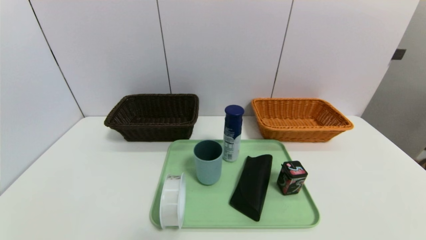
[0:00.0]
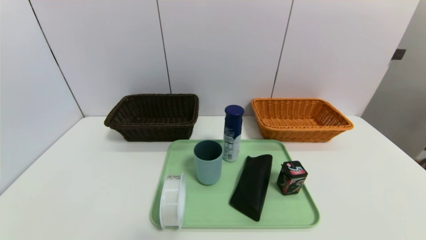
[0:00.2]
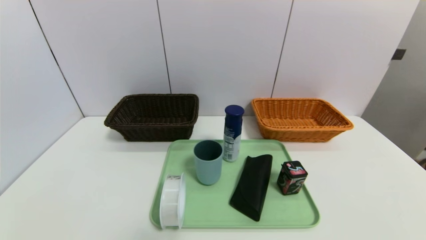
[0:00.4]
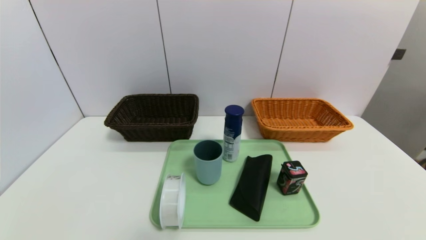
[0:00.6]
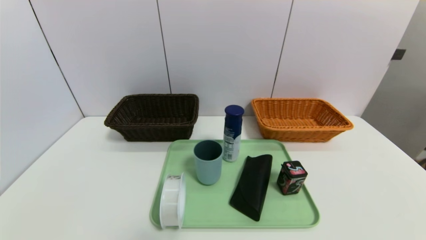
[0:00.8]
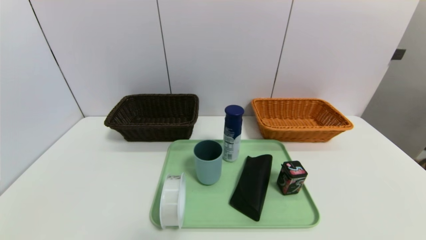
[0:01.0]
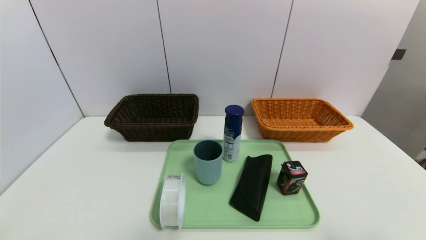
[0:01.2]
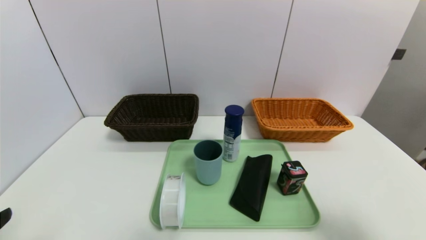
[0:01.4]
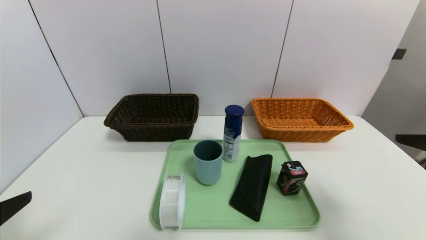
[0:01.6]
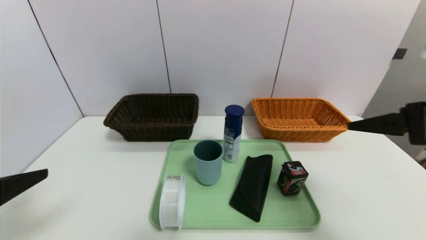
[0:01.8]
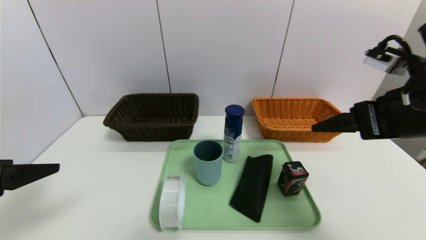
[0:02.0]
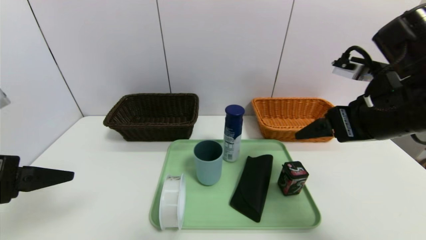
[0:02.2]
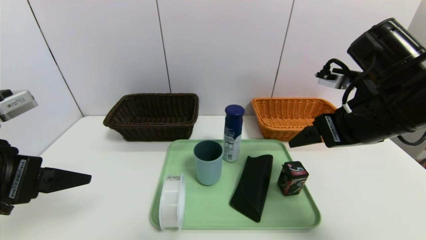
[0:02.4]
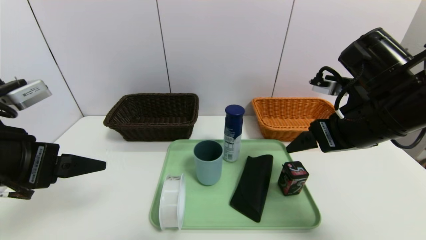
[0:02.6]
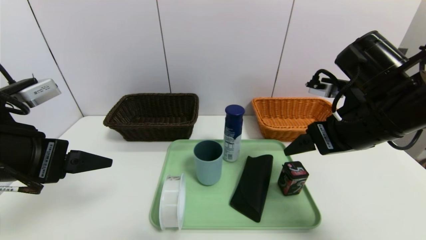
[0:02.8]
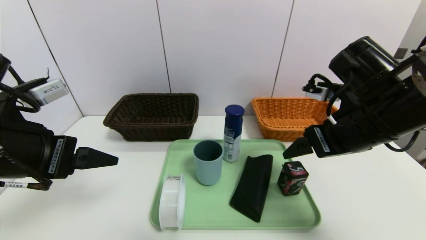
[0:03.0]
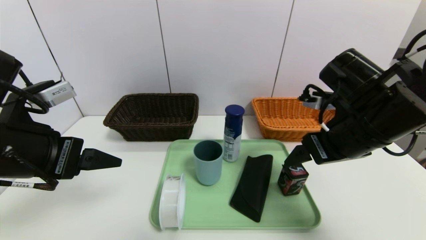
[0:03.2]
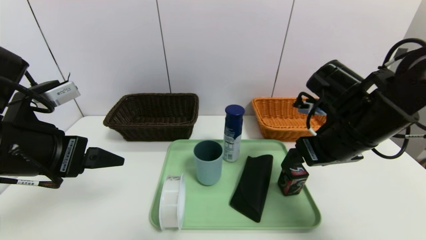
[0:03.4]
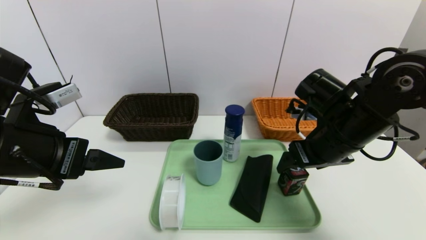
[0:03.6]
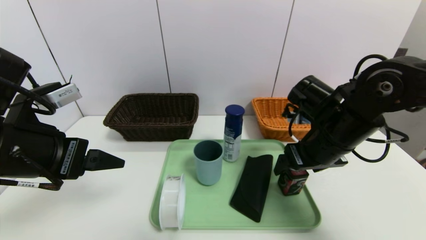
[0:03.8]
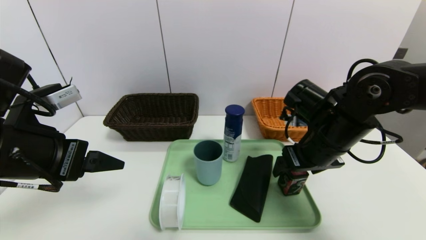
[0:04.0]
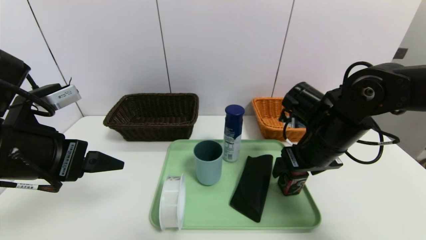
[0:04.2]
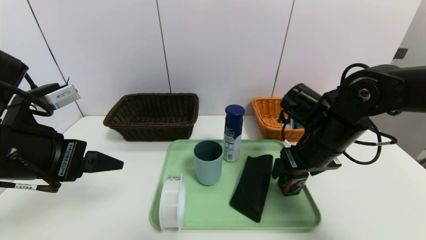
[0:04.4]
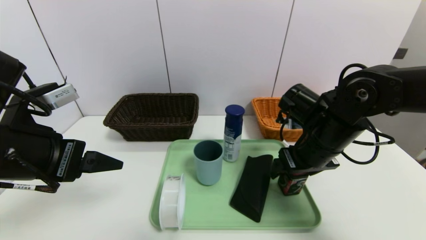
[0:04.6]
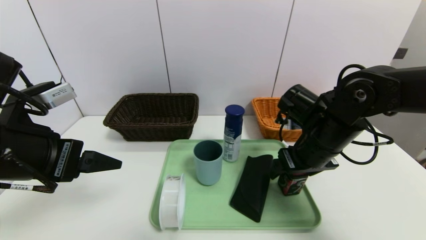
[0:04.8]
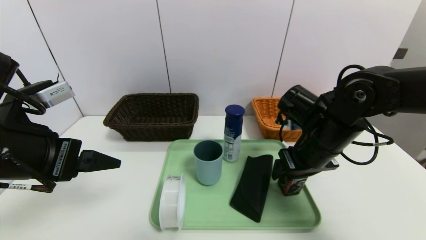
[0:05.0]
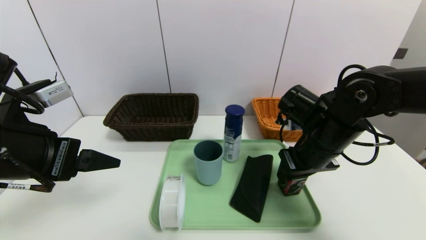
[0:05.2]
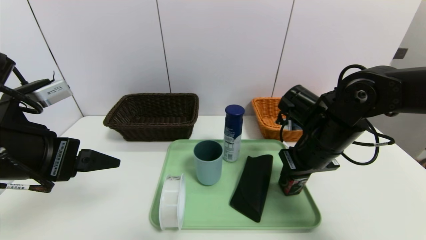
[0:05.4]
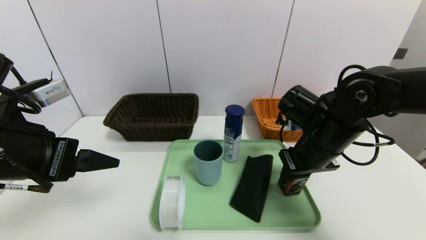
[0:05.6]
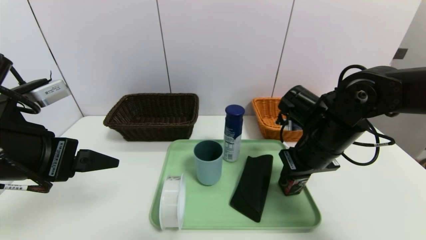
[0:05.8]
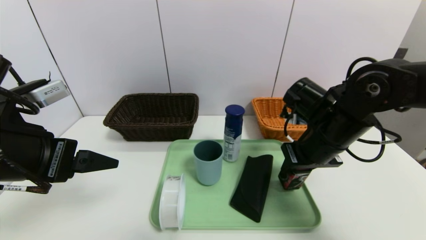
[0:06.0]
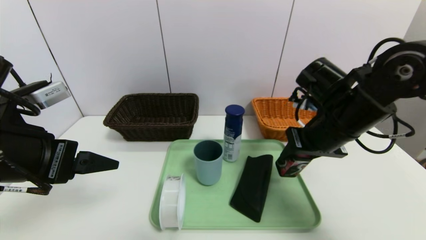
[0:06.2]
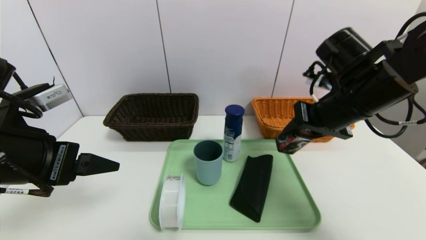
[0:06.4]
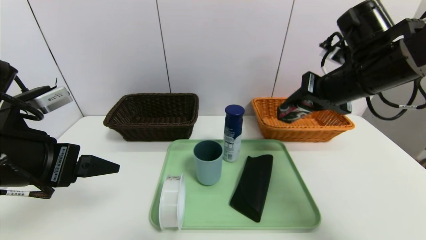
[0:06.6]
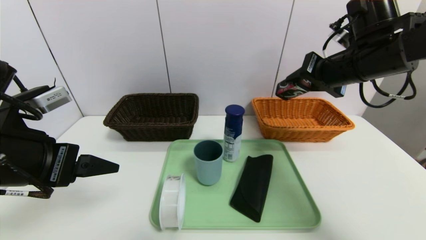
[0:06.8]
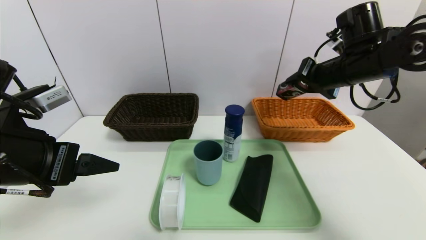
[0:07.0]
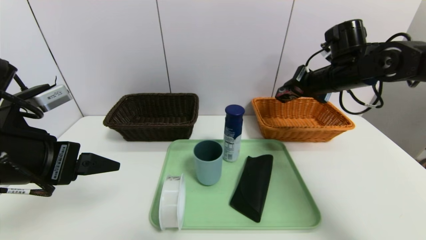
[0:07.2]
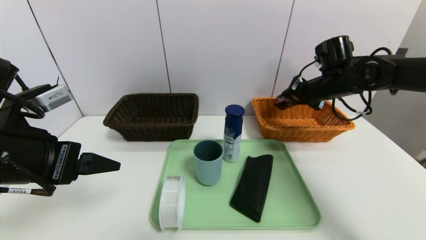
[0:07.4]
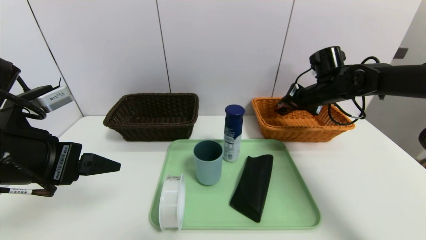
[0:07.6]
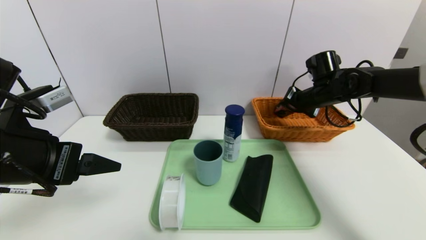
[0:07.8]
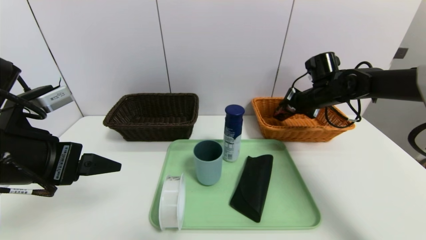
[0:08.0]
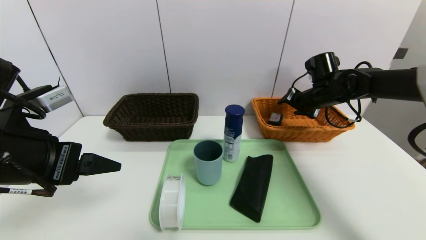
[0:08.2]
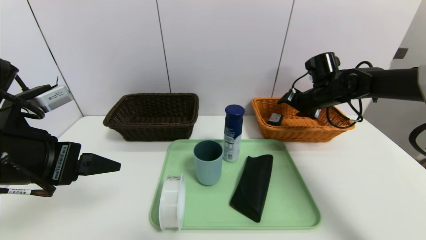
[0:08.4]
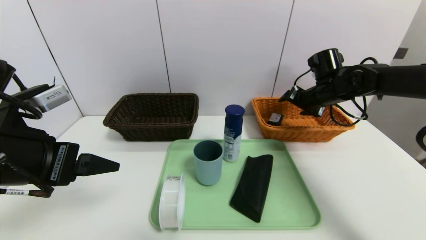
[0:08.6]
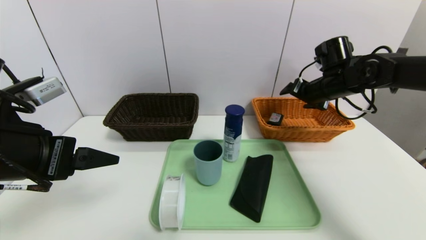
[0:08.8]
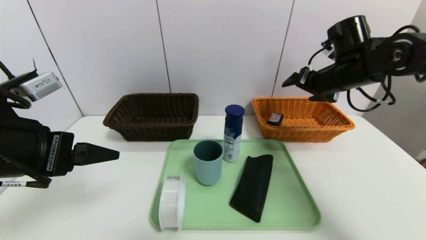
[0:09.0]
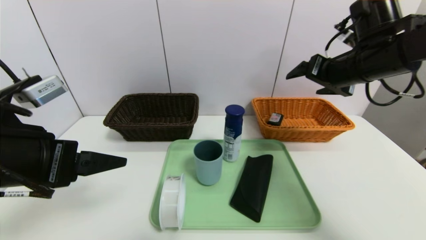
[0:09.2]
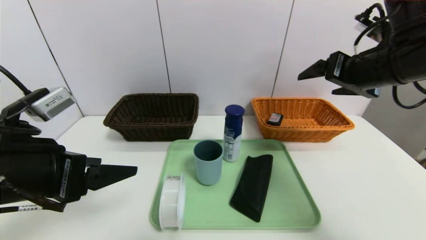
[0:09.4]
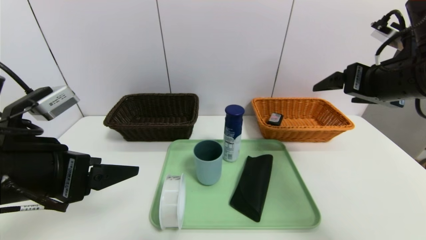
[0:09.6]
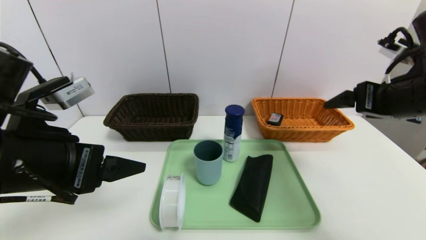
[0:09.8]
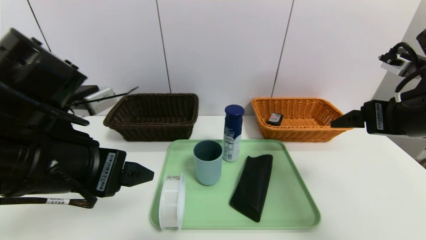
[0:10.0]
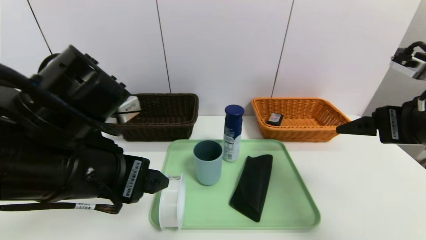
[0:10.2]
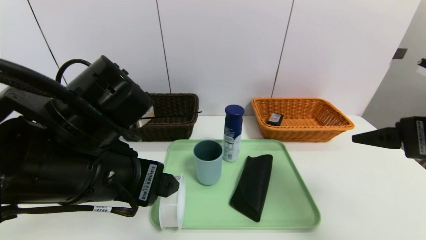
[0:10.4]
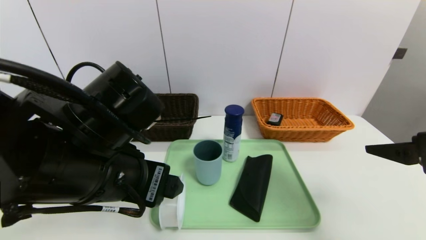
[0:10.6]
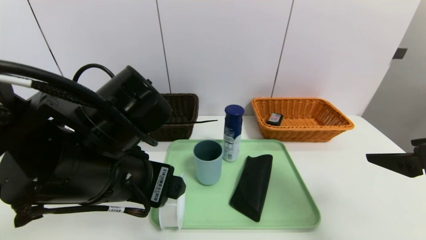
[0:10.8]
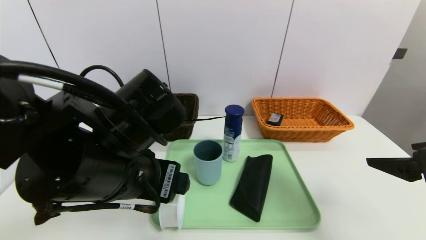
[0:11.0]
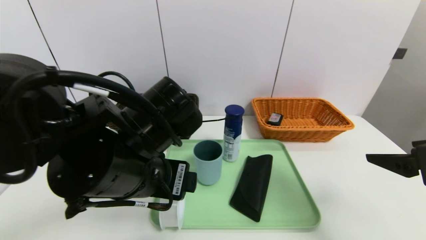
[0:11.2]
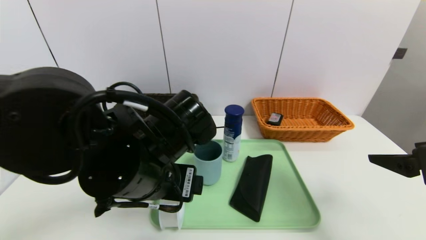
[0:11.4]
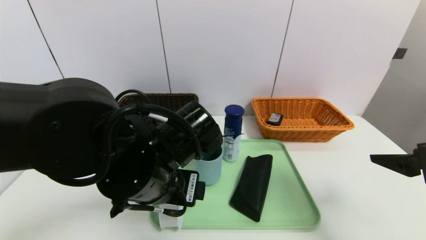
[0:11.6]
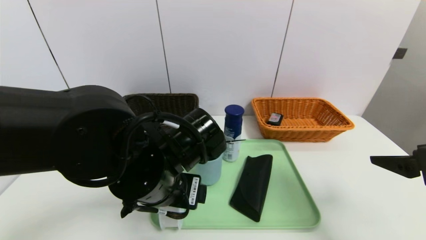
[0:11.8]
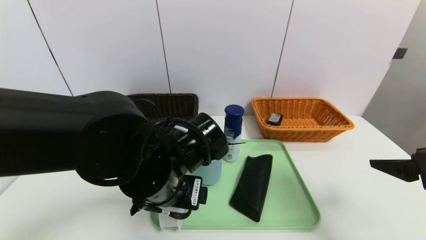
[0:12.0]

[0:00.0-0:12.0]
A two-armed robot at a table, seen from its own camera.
Task of the whole recording: place the food in the right basket with the right gripper, and place the non food items in the left basket with the left gripper.
Step, 0:00.0 to 0:08.6: Grasp the square chewing gum and put it in the right basket.
0:00.0 to 0:01.6: Both grippers travel together upward and forward, roughly 20 cm.
0:01.6 to 0:03.0: The right gripper moves forward and to the left, about 15 cm, while the left gripper shifts some 10 cm forward and to the right.
0:03.0 to 0:04.4: The right gripper is displaced downward by roughly 5 cm.
0:04.4 to 0:06.0: The right gripper closes up.
0:06.0 to 0:07.6: The right gripper shifts roughly 15 cm forward and to the right.
0:07.6 to 0:09.0: The right gripper moves upward and backward, roughly 10 cm, and opens its fingers.
0:09.0 to 0:10.4: The right gripper moves backward, some 20 cm; the left gripper shifts approximately 10 cm to the right.
0:10.4 to 0:12.0: The left gripper heads downward and to the right, covering approximately 10 cm.

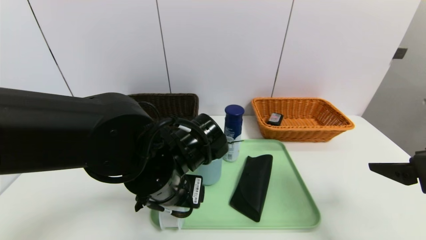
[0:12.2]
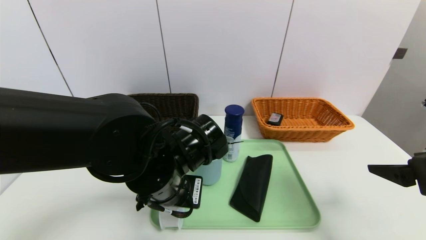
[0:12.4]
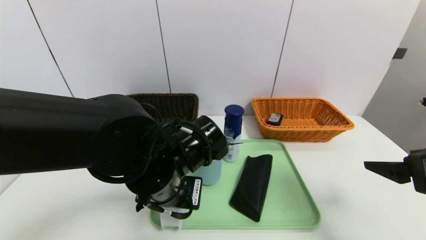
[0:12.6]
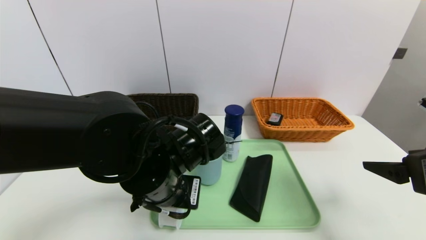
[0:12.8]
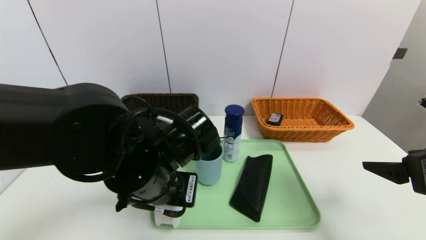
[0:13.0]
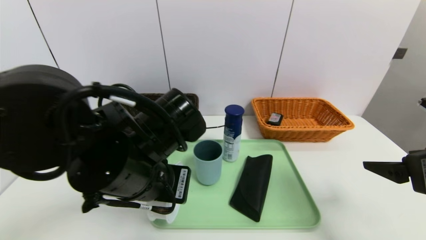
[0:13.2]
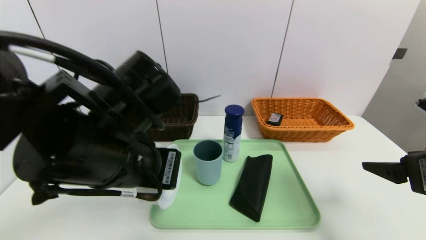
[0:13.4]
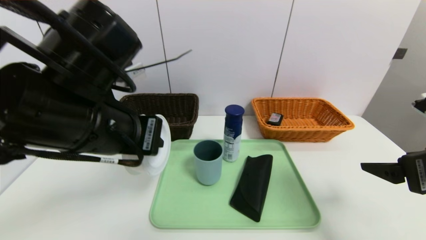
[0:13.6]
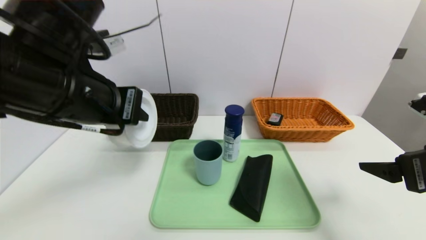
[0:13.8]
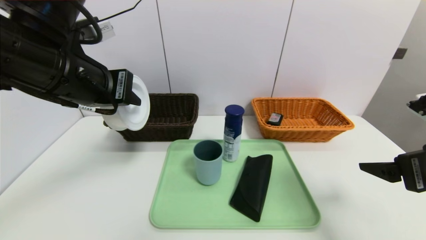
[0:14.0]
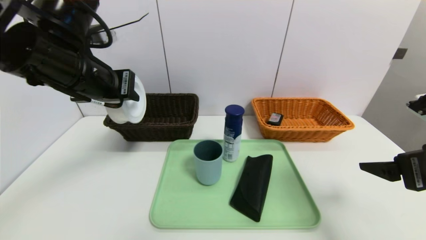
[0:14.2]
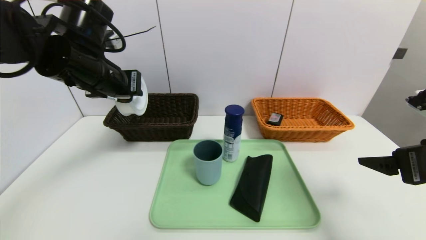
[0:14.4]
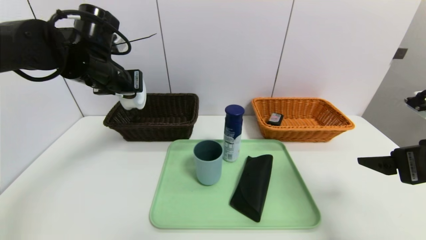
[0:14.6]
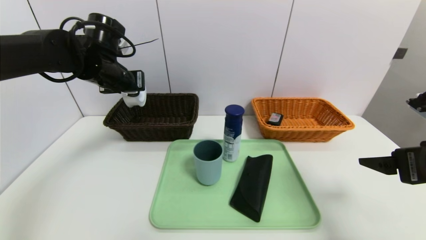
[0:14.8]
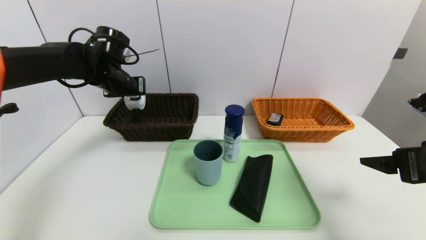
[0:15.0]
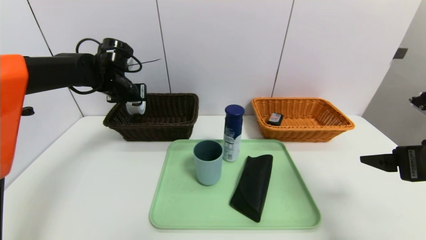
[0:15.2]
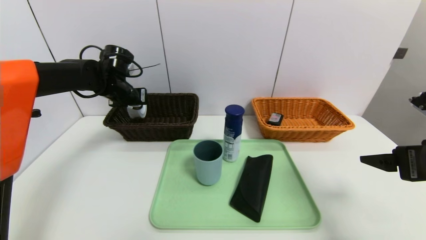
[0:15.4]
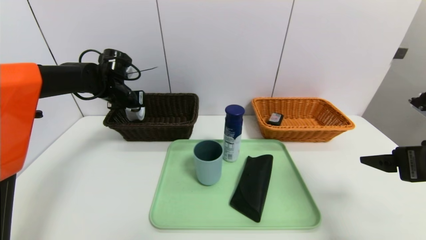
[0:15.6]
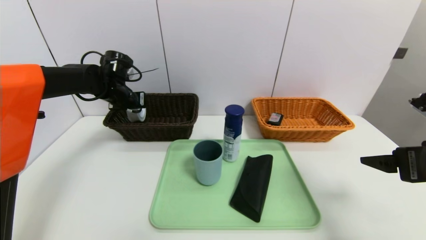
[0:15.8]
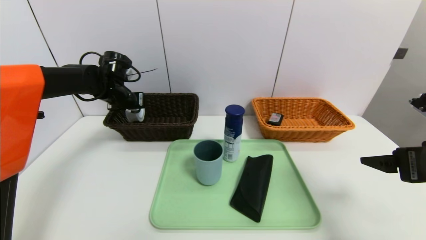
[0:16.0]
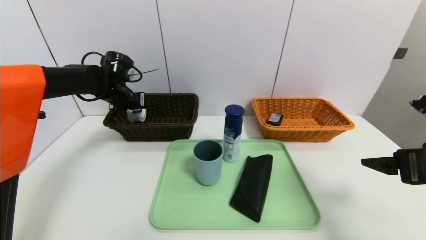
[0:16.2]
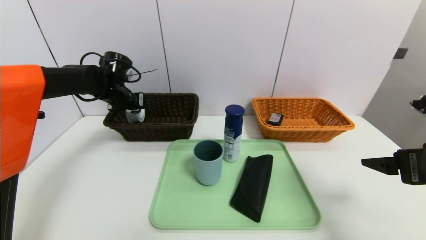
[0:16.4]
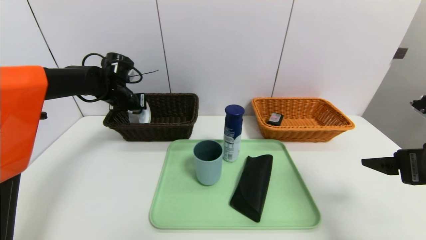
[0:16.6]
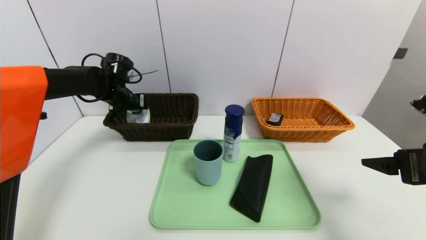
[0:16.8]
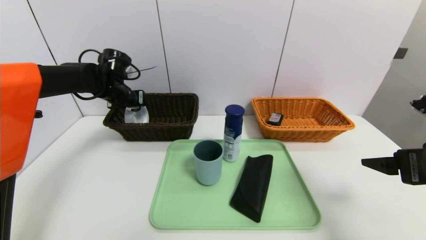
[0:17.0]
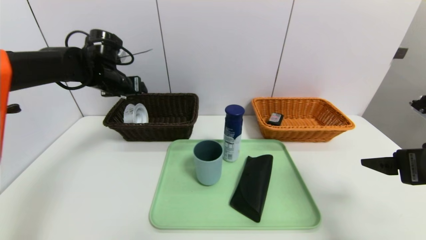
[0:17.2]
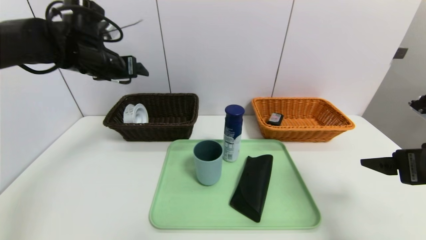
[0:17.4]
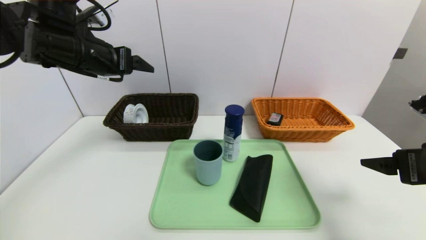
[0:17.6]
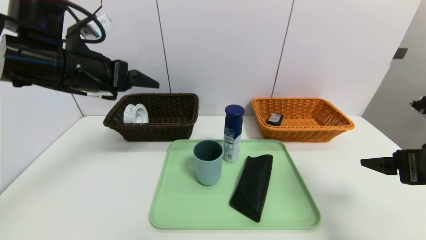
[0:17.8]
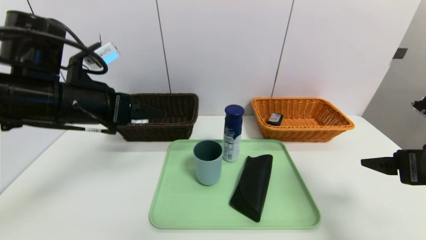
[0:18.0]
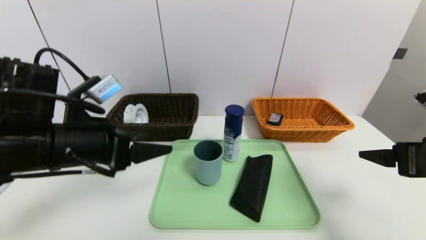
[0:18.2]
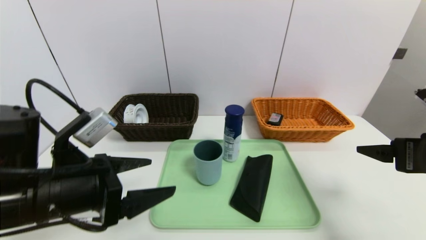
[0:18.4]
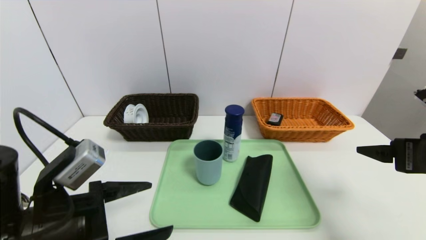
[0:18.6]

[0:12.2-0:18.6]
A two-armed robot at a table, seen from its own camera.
Task of the whole recording: place the food in the right basket with the right gripper, and place the non food items in the left basket with the left gripper.
Step, 0:12.2 to 0:17.0: Grasp the tape and put it in the left basket.
0:12.2 to 0:13.8: The left gripper heads upward and to the left, covering roughly 15 cm, and closes up.
0:13.8 to 0:15.4: The left gripper moves forward and downward, some 25 cm.
0:15.4 to 0:17.0: The left gripper opens.
0:17.0 to 0:18.6: The left gripper travels backward by roughly 30 cm.
